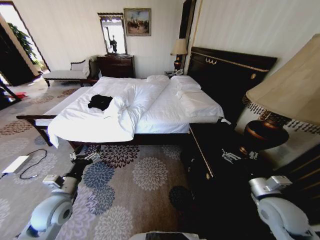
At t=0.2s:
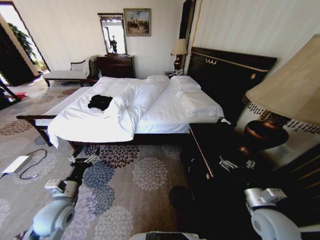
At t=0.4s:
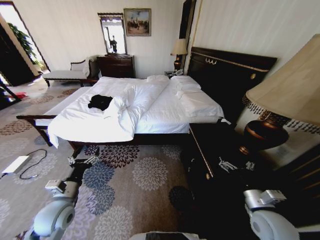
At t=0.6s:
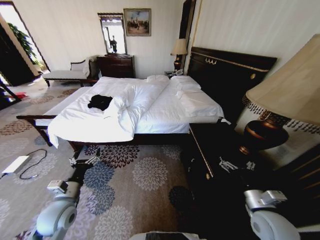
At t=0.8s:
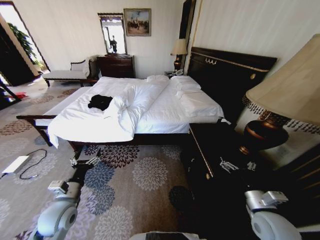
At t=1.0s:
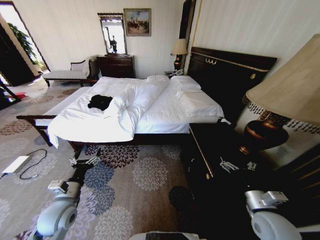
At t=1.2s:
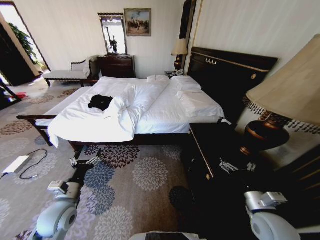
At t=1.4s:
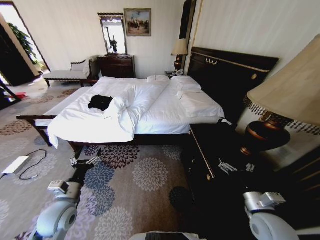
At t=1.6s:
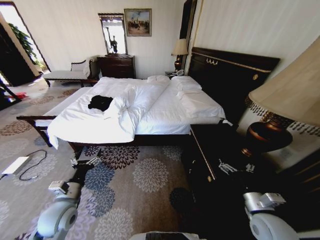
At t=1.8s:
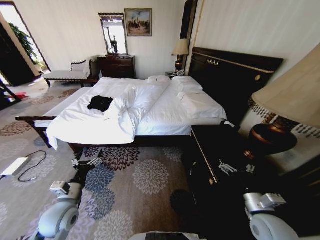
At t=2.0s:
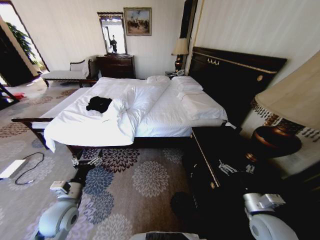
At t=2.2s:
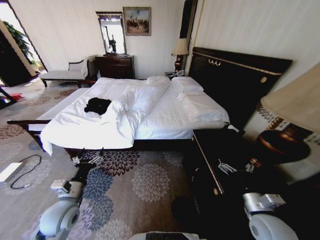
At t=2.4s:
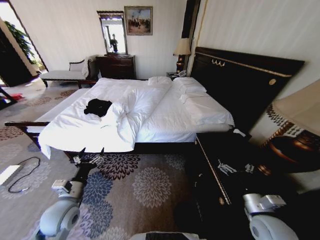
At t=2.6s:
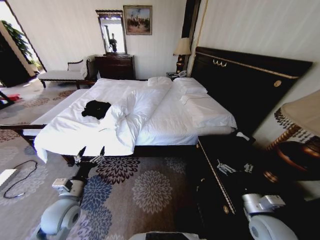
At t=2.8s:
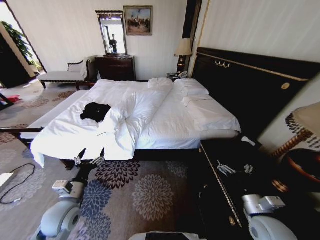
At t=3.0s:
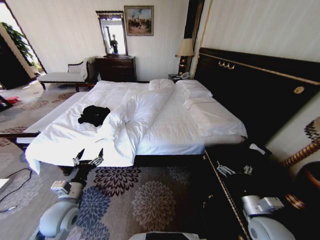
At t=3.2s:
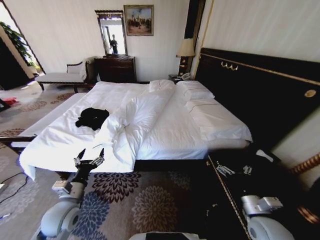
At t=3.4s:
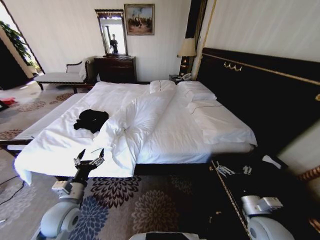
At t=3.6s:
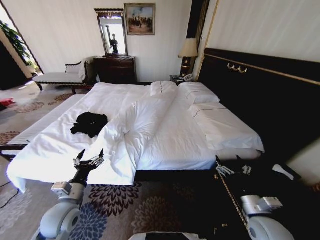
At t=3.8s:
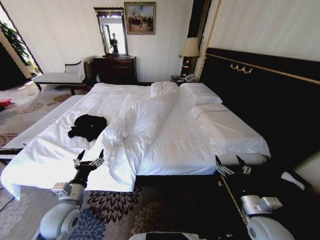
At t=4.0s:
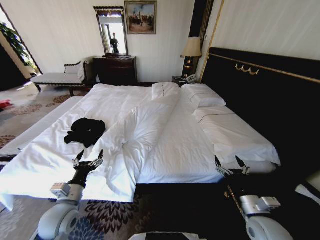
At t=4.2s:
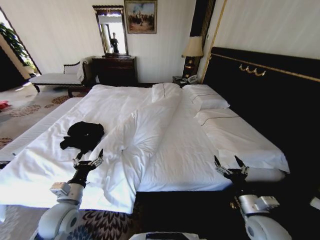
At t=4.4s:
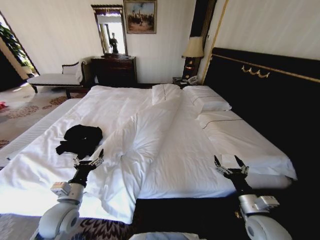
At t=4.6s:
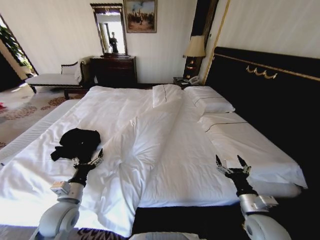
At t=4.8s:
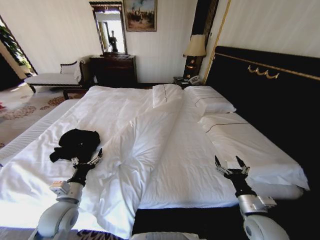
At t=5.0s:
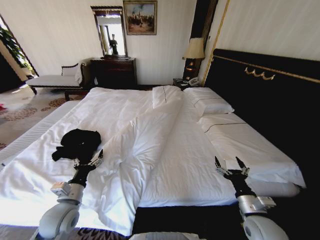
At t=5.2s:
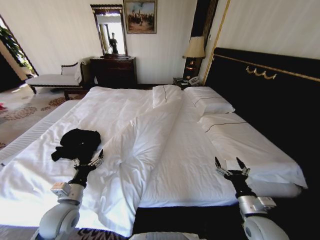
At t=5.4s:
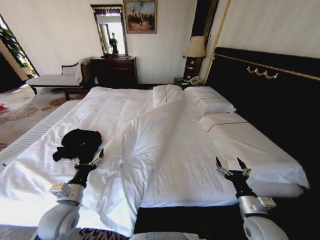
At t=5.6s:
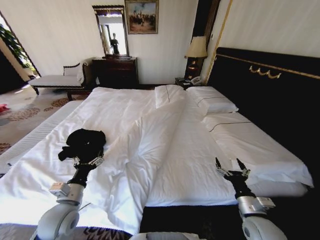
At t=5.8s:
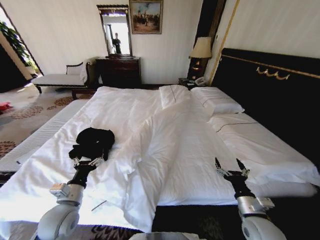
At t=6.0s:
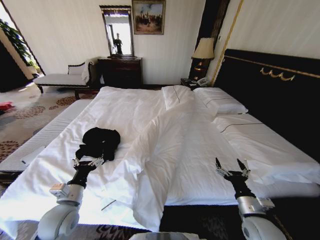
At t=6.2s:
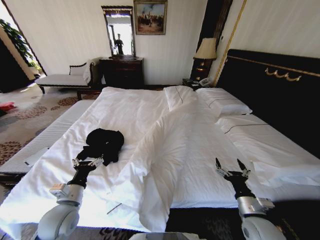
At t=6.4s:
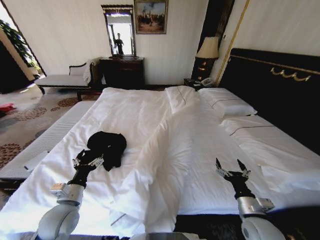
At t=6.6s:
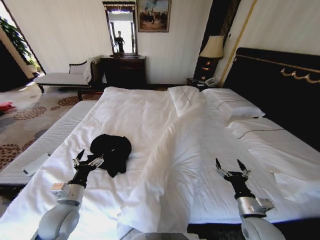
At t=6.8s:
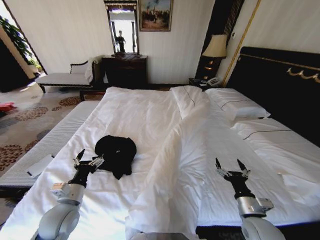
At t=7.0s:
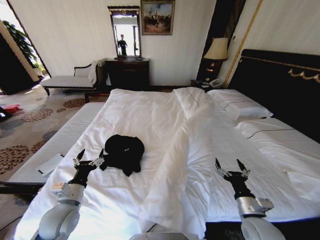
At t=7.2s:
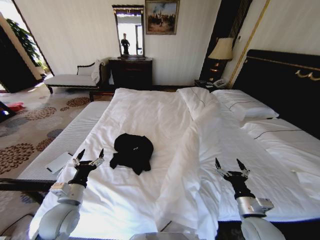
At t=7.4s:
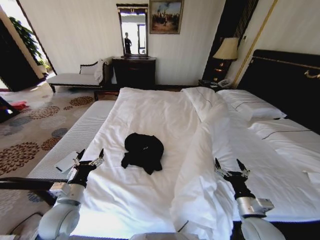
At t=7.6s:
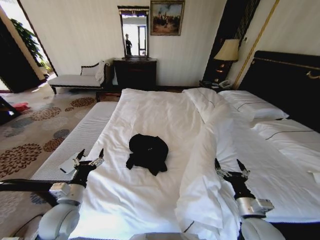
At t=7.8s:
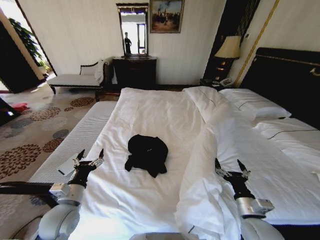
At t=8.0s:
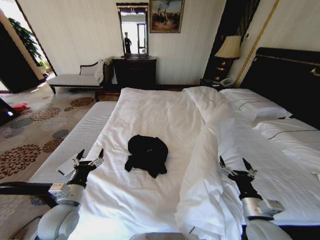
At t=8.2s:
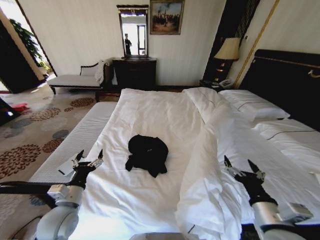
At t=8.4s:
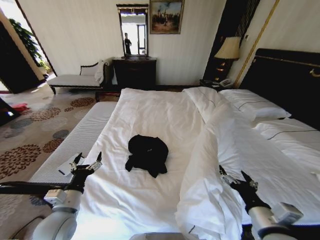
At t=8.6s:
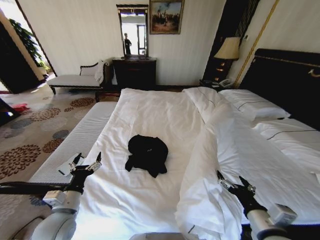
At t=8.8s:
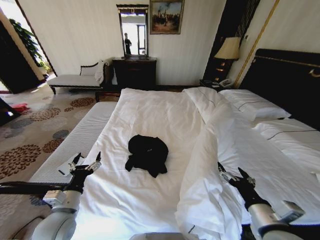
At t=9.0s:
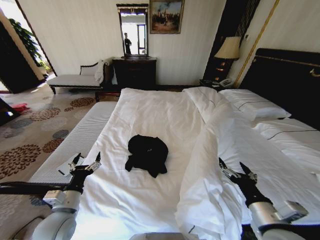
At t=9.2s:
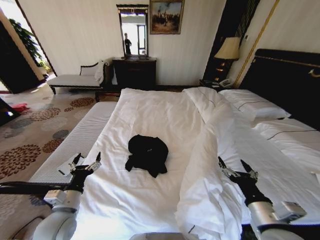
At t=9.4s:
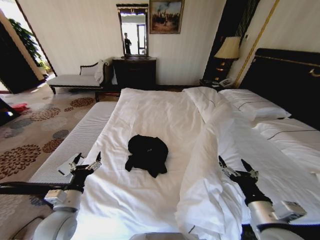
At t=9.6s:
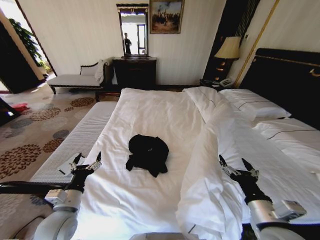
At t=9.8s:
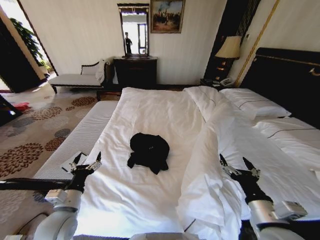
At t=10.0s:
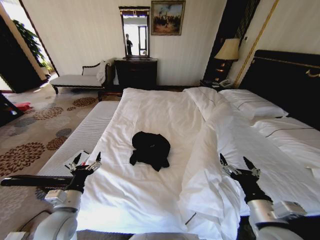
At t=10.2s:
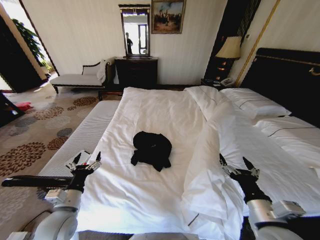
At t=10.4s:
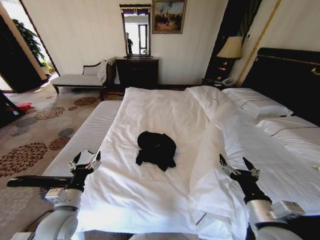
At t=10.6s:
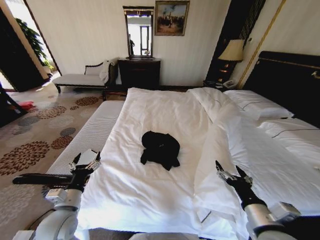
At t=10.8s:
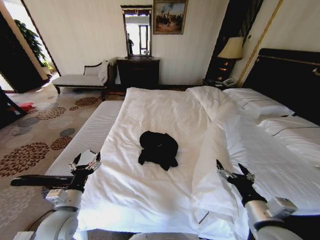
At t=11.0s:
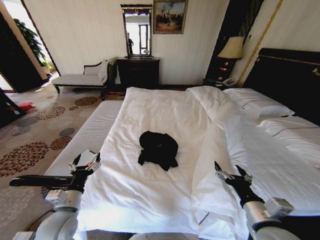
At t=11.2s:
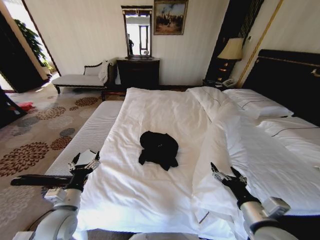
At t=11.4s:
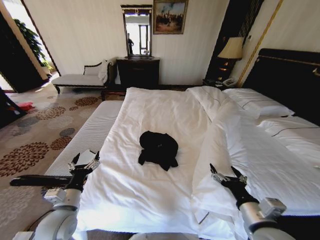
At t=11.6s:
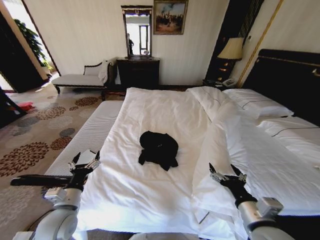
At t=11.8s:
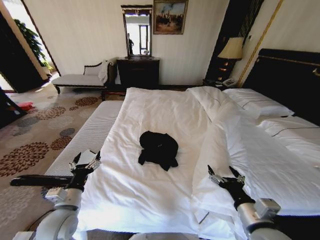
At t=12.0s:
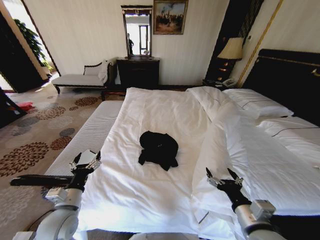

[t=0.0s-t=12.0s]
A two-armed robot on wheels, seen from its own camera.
Task of the whole recording: Fold the clothes on the bed.
t=7.6s to t=9.0s: The right gripper goes some 10 cm upward.
t=10.4s to t=12.0s: The grippers stay close to where they were, moving slightly.

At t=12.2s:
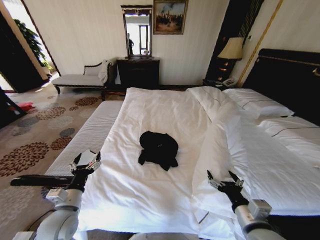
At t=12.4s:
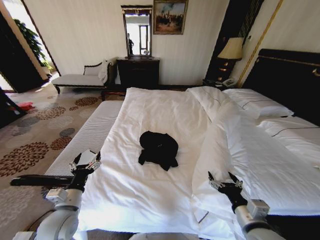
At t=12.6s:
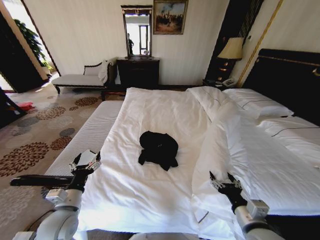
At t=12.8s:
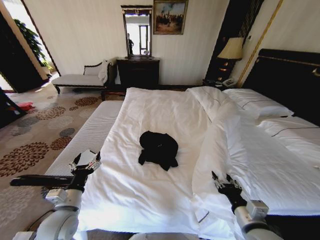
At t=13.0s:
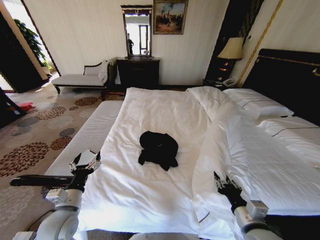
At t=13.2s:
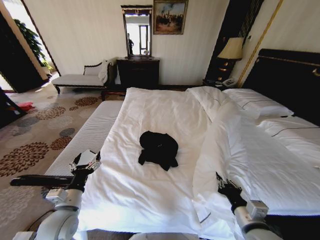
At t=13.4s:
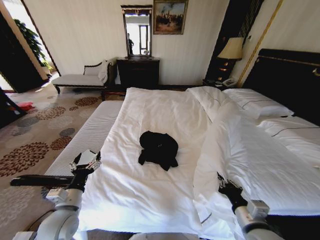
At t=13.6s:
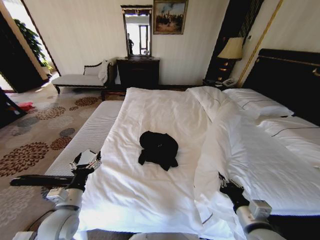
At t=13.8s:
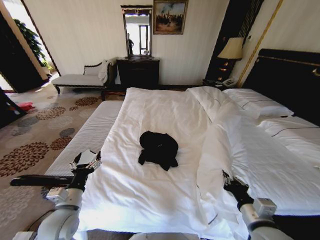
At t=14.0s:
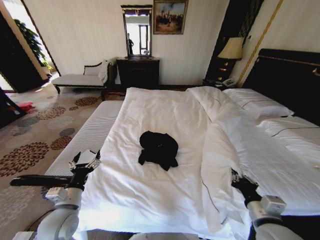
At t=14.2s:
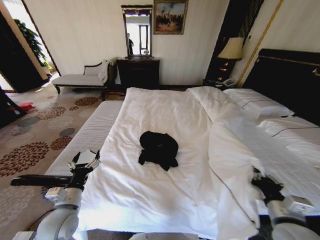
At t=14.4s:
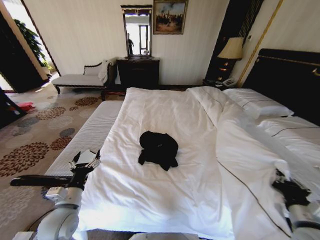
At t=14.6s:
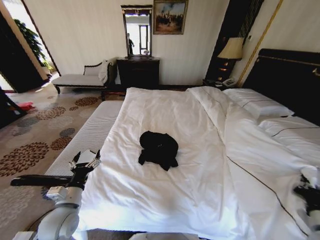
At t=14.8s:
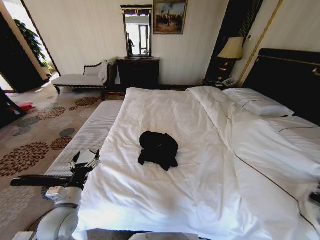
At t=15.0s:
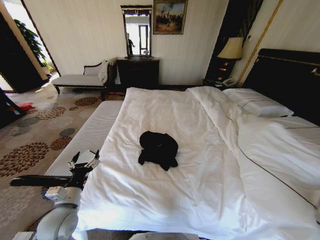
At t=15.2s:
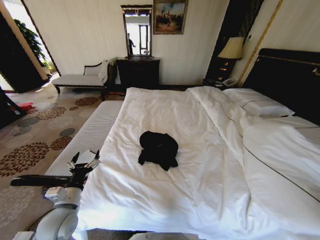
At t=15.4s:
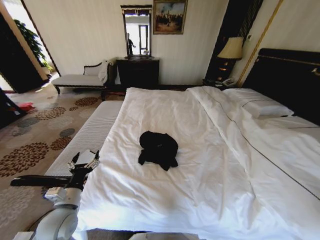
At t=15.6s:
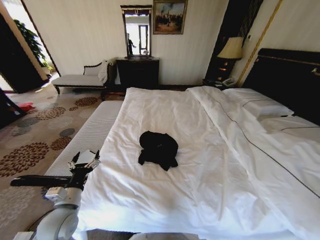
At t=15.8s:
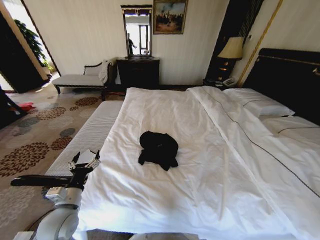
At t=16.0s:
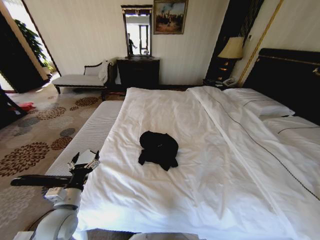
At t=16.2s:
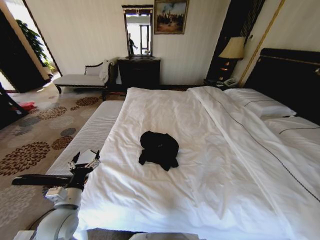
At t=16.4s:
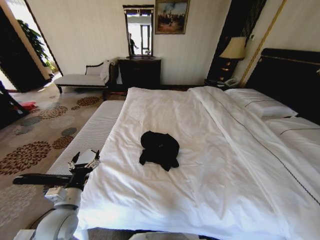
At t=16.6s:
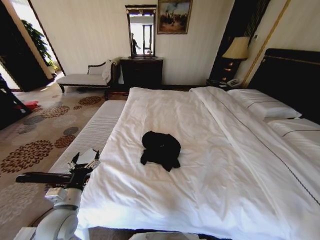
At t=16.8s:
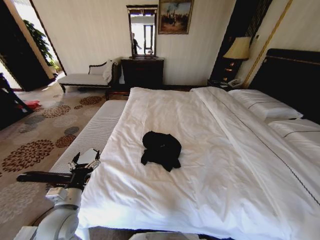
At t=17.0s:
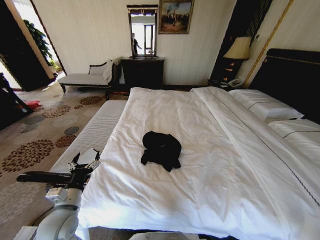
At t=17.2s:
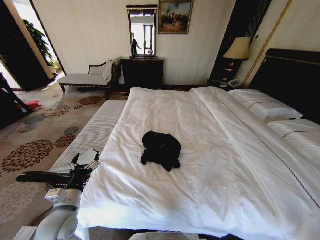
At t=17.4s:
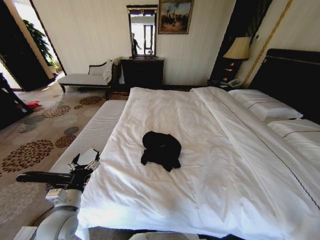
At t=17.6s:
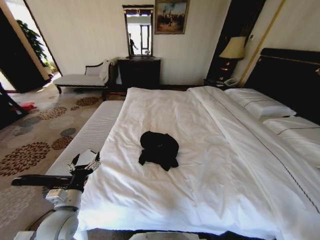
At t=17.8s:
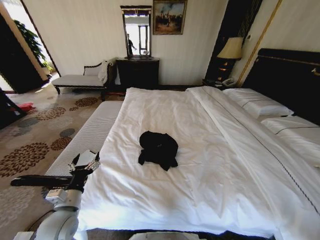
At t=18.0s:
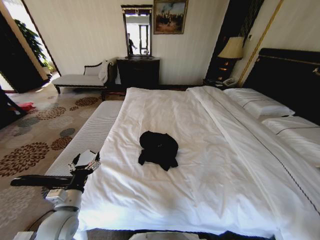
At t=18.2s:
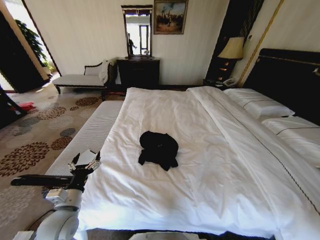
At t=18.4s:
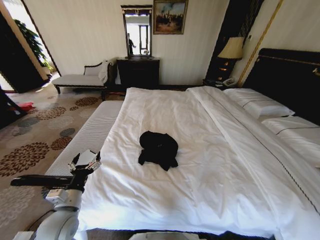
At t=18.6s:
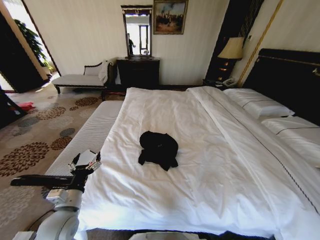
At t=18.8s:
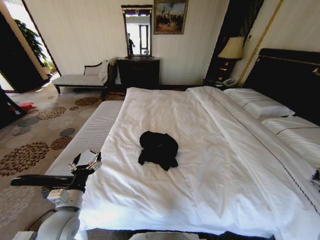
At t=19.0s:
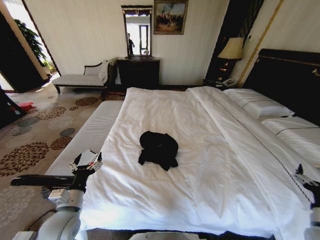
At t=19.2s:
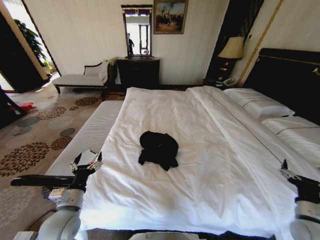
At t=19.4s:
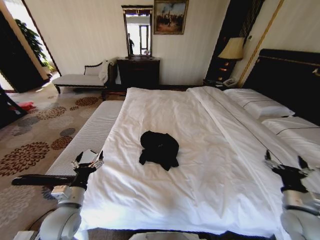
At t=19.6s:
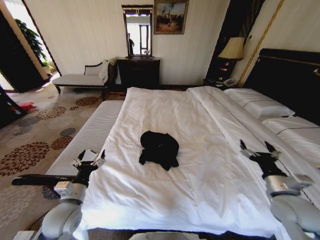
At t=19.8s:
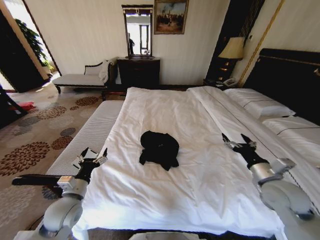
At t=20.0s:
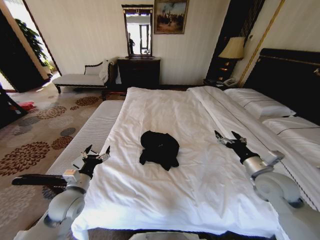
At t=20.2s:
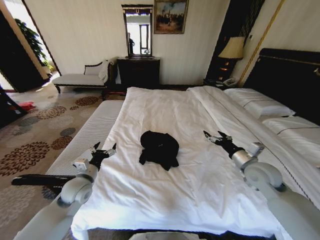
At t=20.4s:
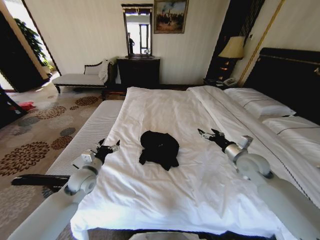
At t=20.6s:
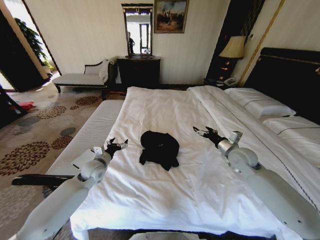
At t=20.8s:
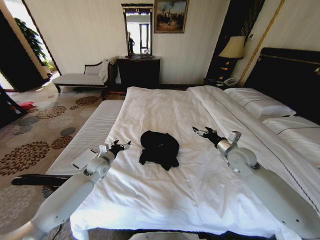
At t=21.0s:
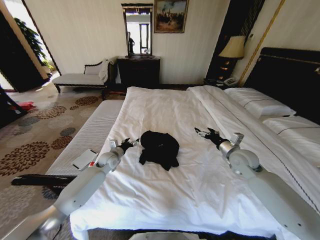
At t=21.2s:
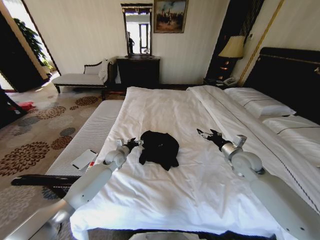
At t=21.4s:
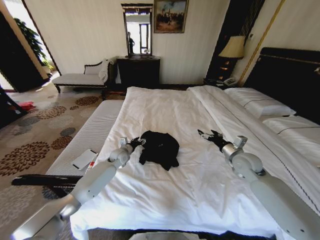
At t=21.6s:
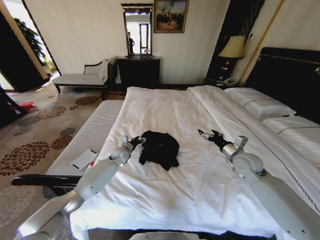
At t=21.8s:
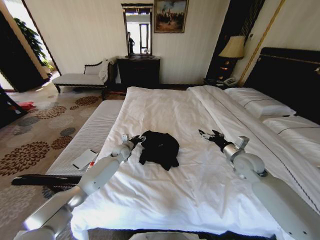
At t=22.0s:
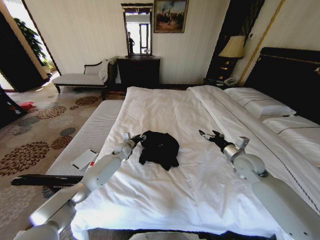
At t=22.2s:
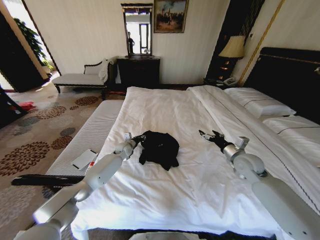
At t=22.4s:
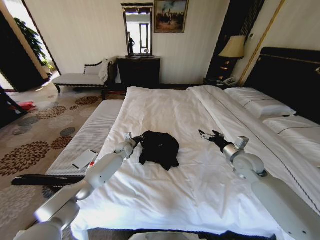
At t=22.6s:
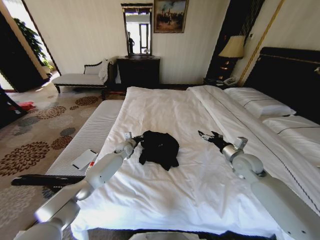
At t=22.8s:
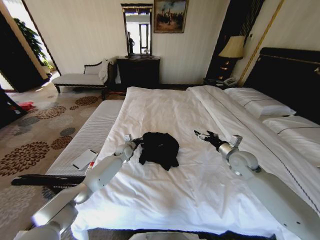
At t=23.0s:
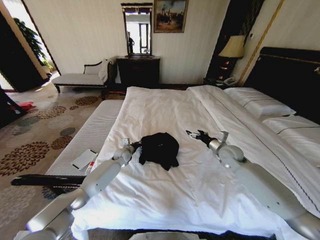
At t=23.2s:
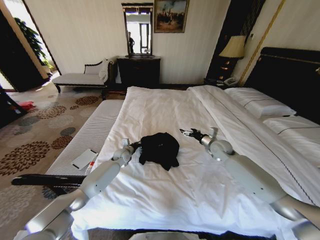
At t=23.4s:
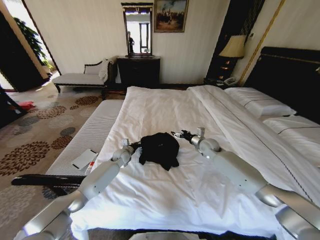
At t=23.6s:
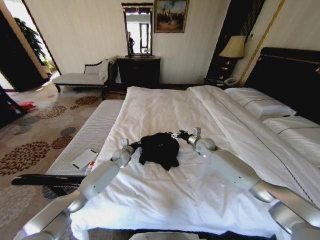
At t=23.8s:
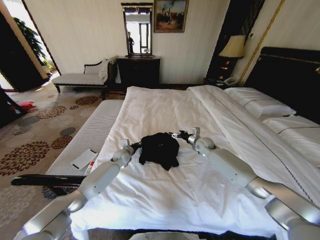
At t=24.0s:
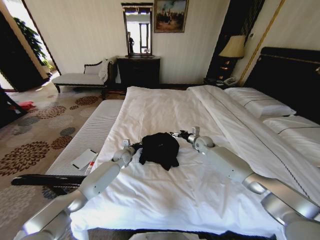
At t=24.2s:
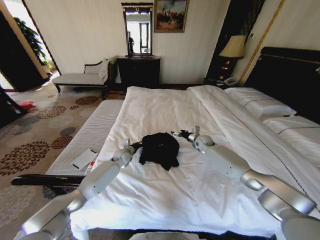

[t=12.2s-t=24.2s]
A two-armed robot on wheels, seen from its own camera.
Task of the whole recording: Fold the clothes on the bed.
t=12.2s to t=13.8s: The right gripper closes its fingers.
t=13.8s to t=15.2s: The right gripper is displaced to the right by roughly 30 cm.
t=15.2s to t=16.6s: The right gripper heads downward, to the right and backward, covering some 25 cm.
t=16.6s to t=18.2s: The right gripper changes place by about 5 cm, and opens up.
t=18.2s to t=19.8s: The right gripper shifts roughly 40 cm to the left, upward and forward.
t=19.8s to t=21.2s: The right gripper travels forward by approximately 15 cm. Meanwhile the left gripper heads forward, covering some 25 cm.
t=21.2s to t=22.6s: The left gripper travels forward by some 5 cm, and closes.
t=22.6s to t=24.2s: The right gripper is displaced forward and to the left by some 20 cm.
